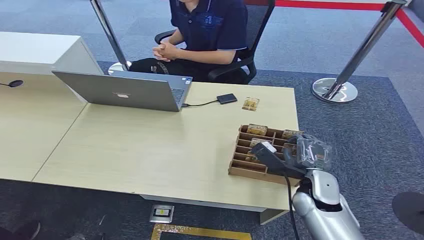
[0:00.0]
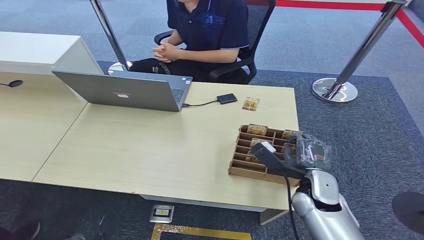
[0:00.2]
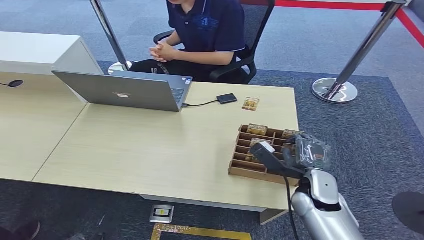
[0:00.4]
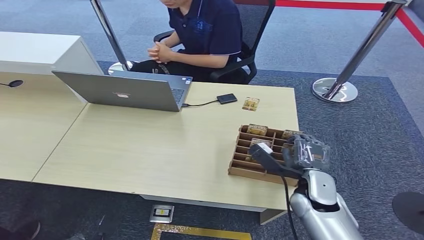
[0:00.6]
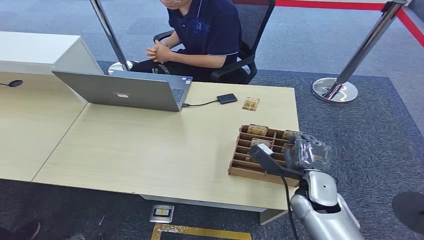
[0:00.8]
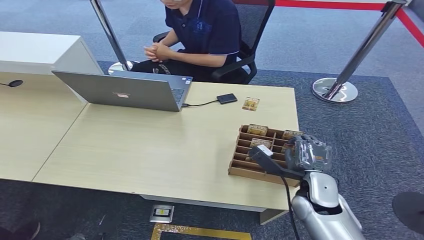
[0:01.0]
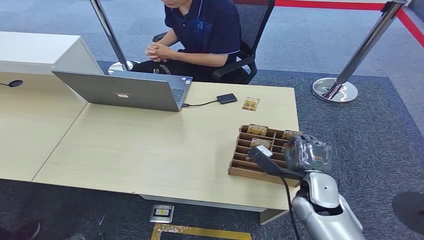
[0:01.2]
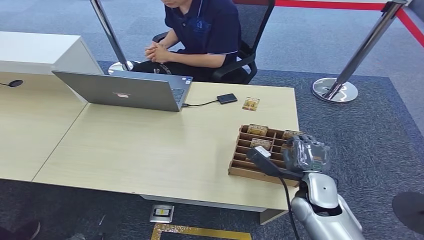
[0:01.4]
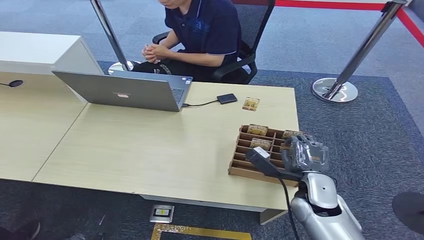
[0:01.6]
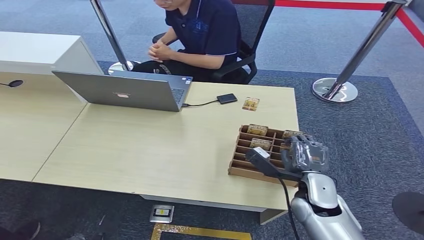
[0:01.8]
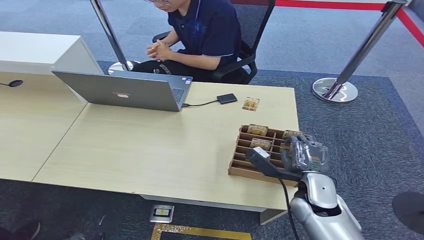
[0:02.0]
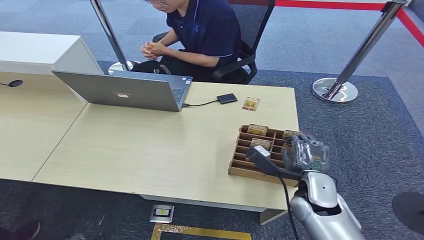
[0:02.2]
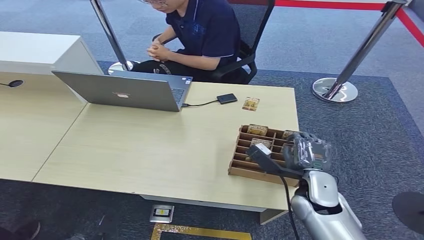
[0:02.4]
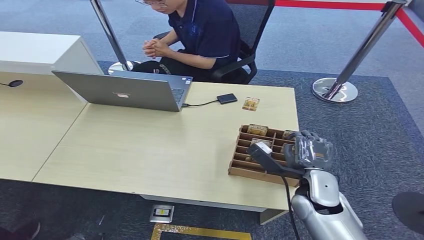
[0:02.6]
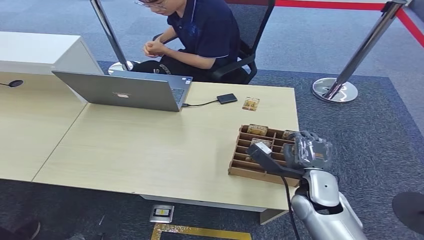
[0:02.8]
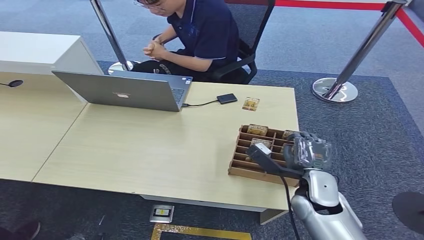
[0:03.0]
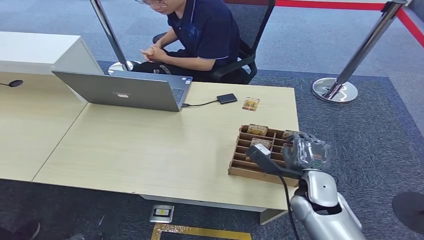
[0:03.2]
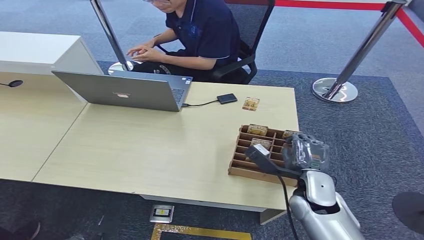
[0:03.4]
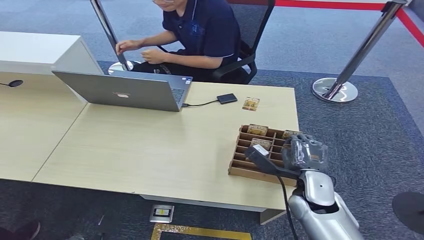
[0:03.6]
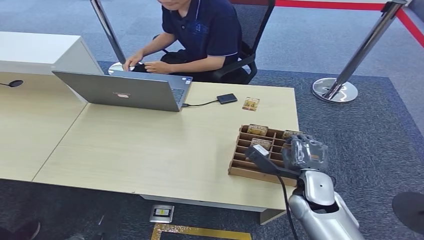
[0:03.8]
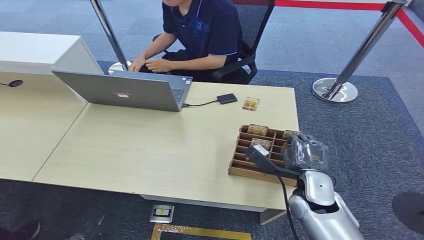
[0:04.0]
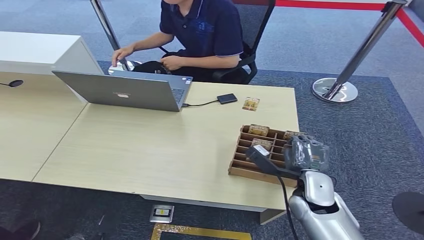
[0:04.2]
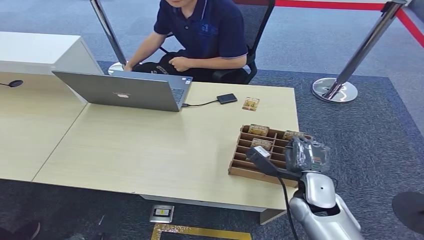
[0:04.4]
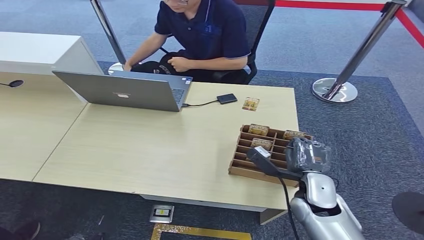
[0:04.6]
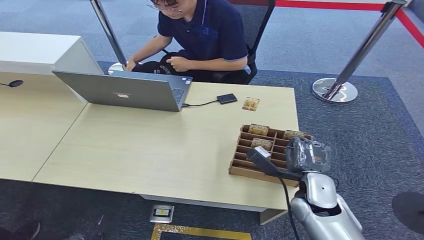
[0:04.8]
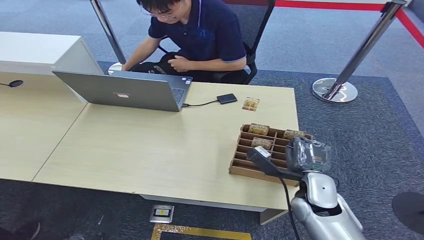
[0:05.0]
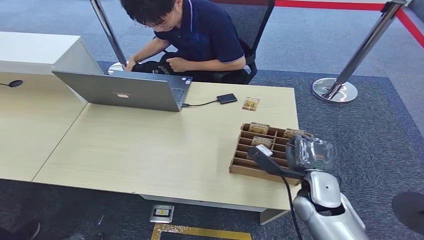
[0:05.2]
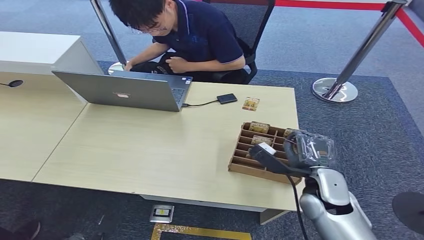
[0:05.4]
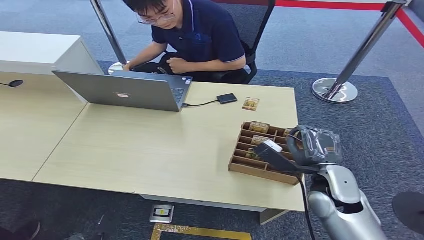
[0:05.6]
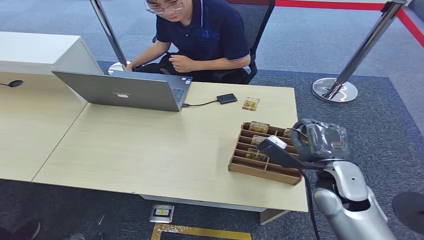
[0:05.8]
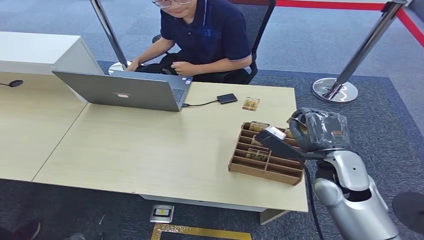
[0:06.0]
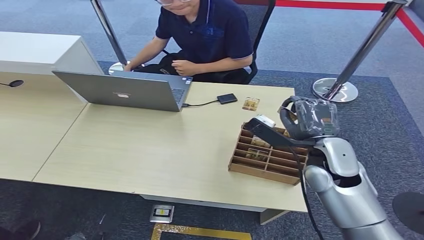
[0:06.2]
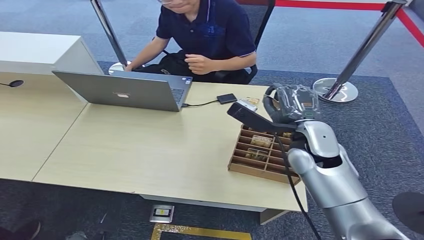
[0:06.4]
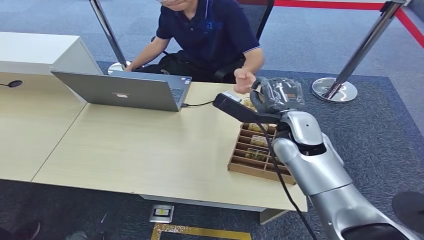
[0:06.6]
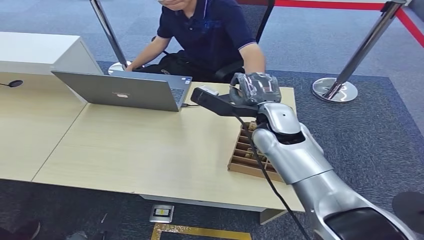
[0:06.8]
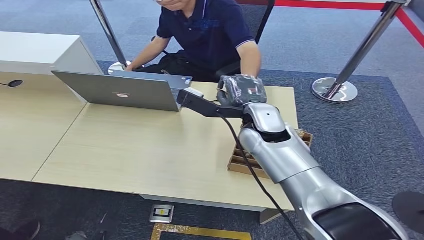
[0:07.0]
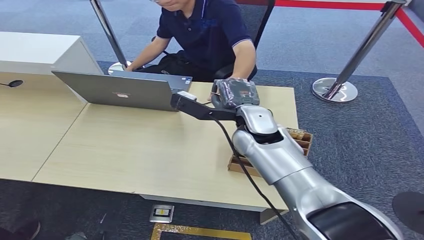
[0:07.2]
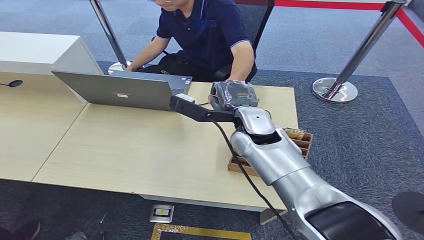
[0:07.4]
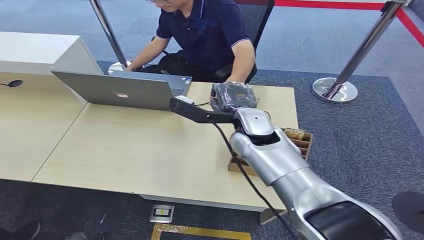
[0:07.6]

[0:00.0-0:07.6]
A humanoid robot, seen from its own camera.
Step, 0:00.0 to 0:06.2: Pick up the key card from the card box.
Step, 0:06.6 to 0:07.4: Hand the key card to the target.
0:01.6 to 0:04.6: Both hands stay about where they are.
0:04.6 to 0:06.0: The right hand is displaced upward and forward by about 10 cm.
0:06.0 to 0:07.6: The right hand goes about 15 cm to the left and forward.
